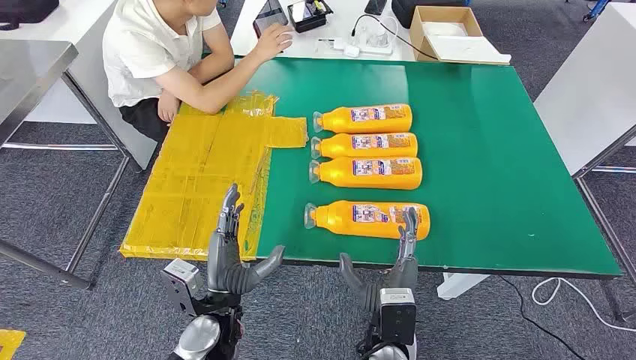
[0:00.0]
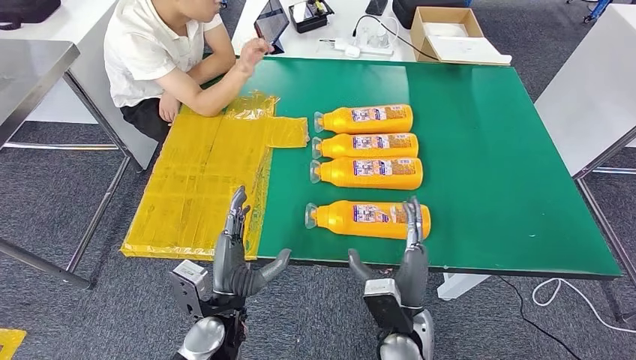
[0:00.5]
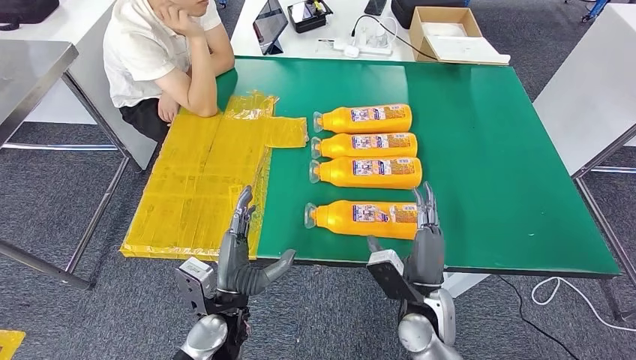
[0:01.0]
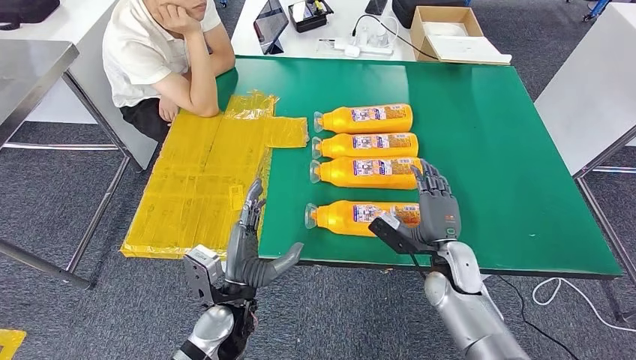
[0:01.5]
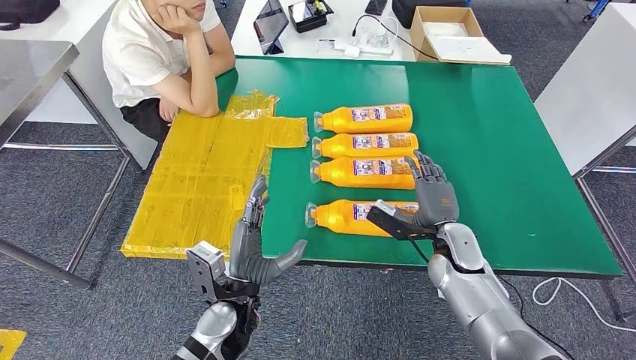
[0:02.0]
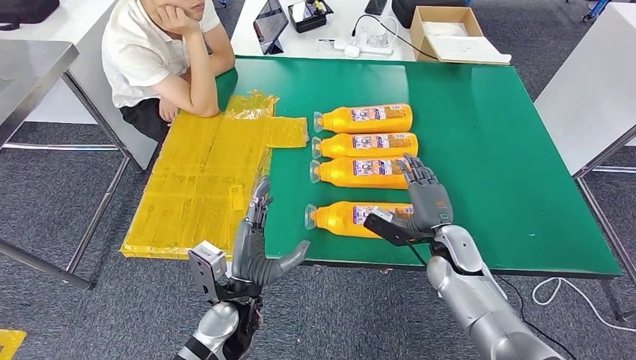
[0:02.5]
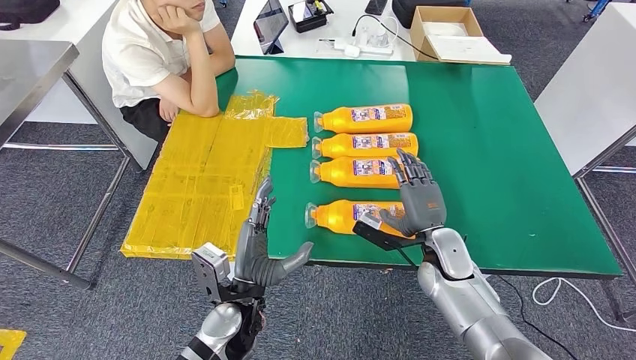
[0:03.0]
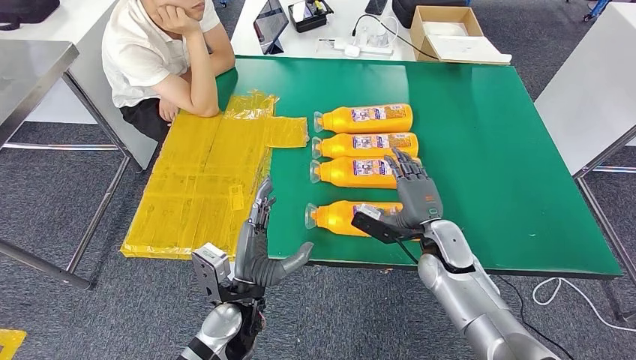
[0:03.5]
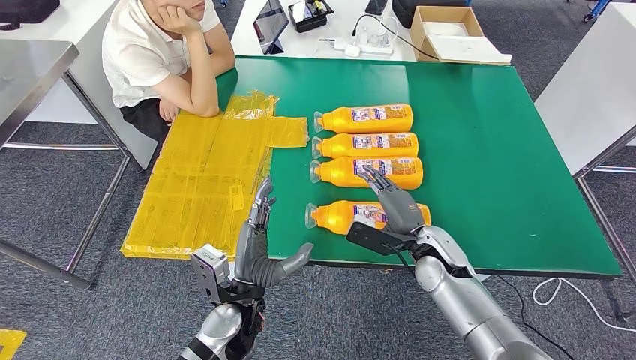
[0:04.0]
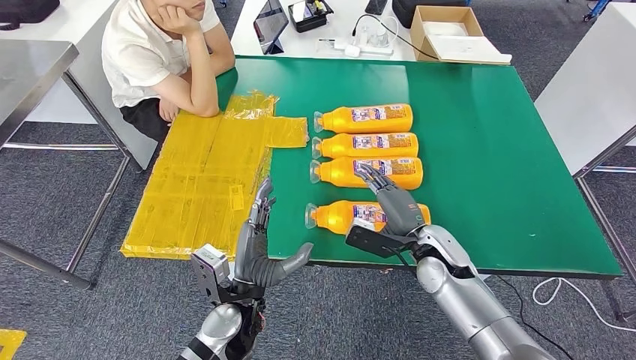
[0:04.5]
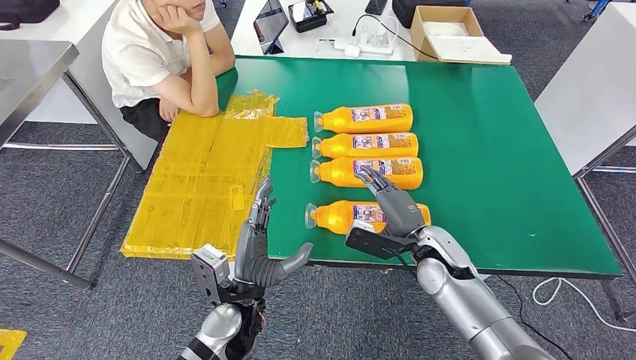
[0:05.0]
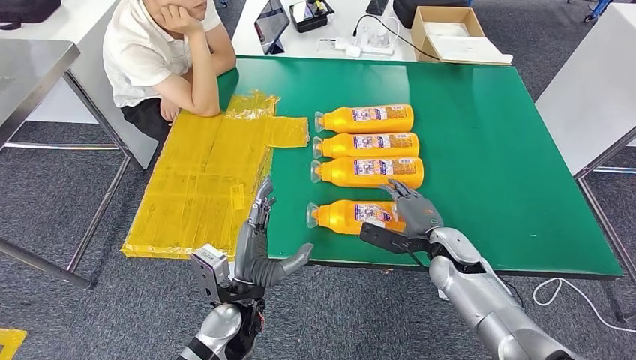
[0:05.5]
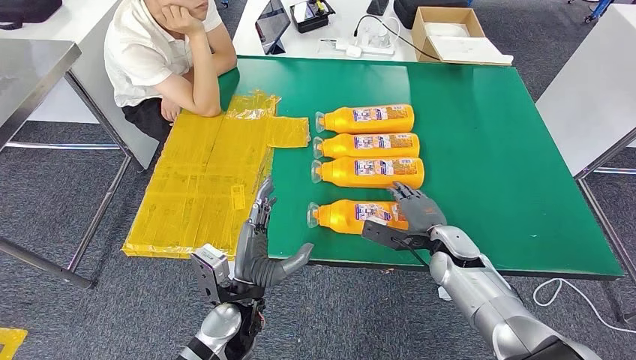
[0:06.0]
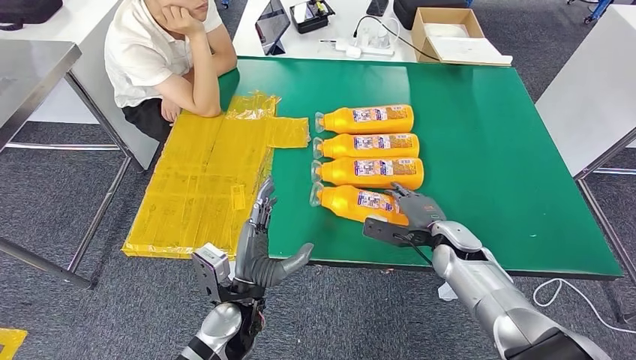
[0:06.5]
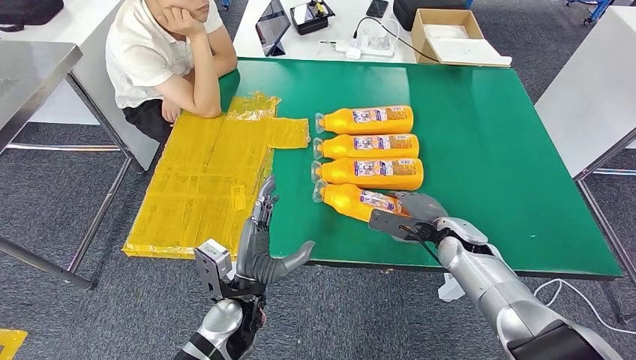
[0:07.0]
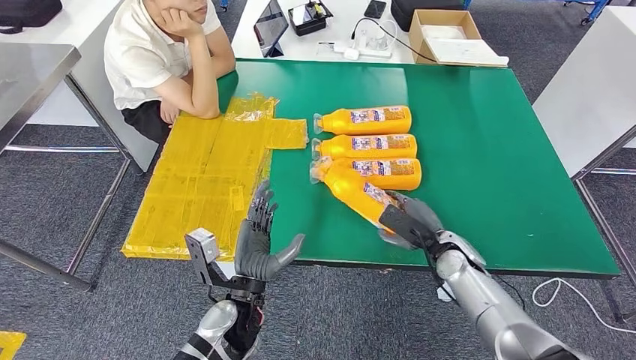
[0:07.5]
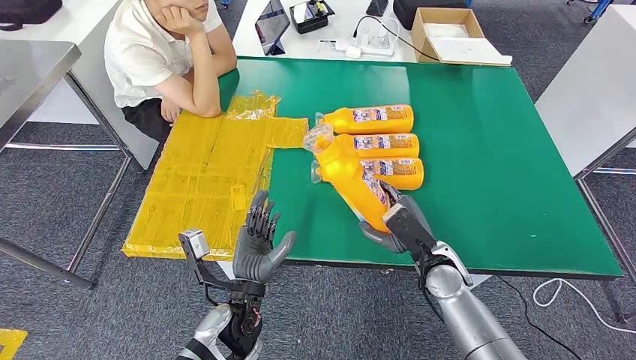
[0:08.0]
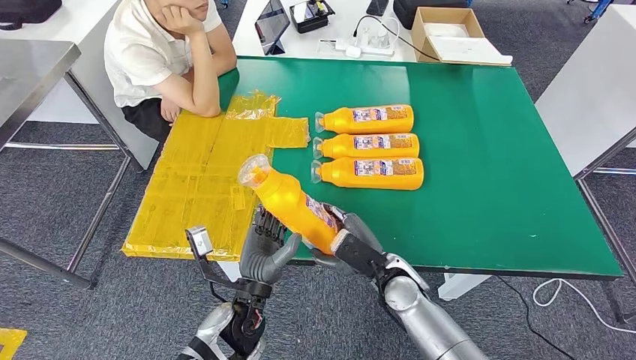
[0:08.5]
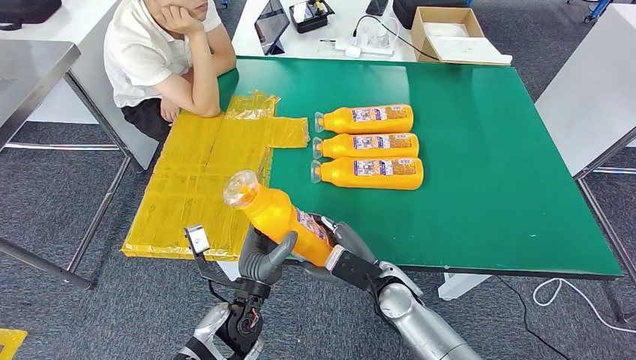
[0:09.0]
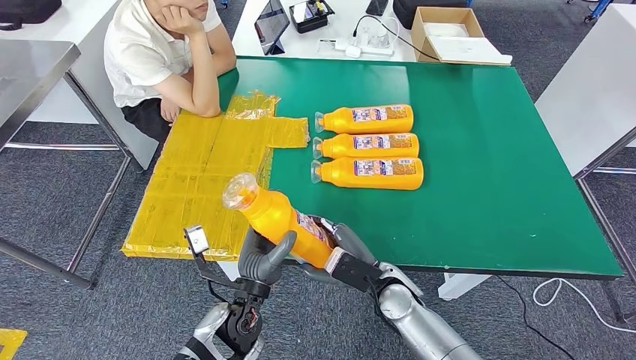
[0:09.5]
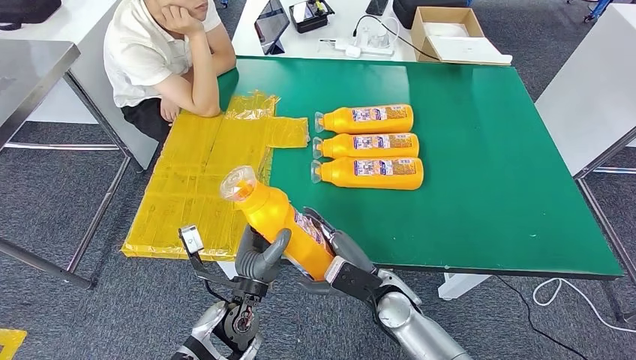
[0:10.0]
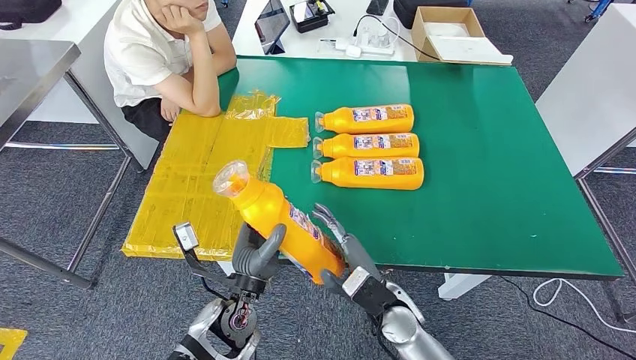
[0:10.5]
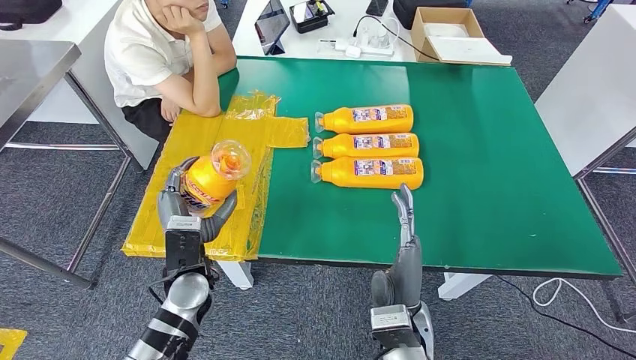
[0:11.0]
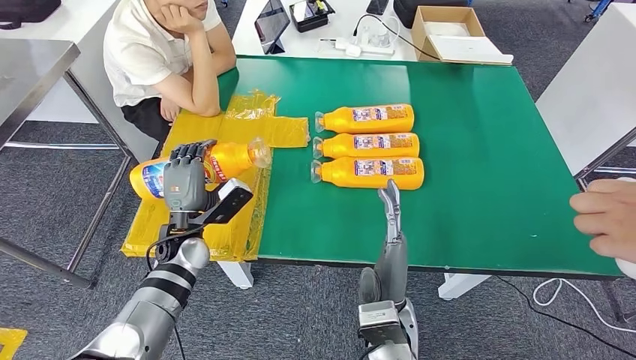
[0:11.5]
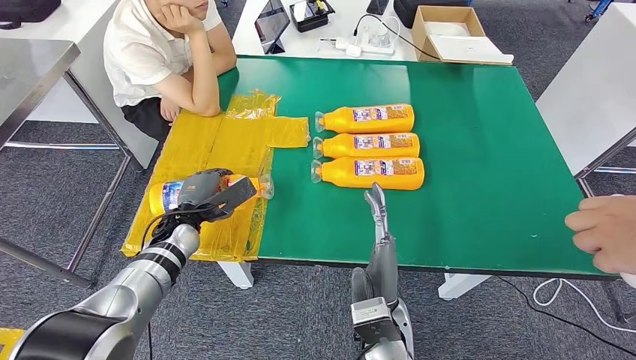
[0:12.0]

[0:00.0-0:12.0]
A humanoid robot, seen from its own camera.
Step, 0.0 to 8.5 s: Take the fast-moving consumer goods bottle from the table.
4.0 to 6.0 s: The right hand ends up about 5 cm from where it was.
6.0 to 8.0 s: The right hand shifts by roughly 5 cm.
8.0 to 10.0 s: The right hand shifts approximately 10 cm to the left.
10.0 to 12.0 s: The left hand travels forward and to the left by some 20 cm. The right hand goes about 10 cm backward and upward.

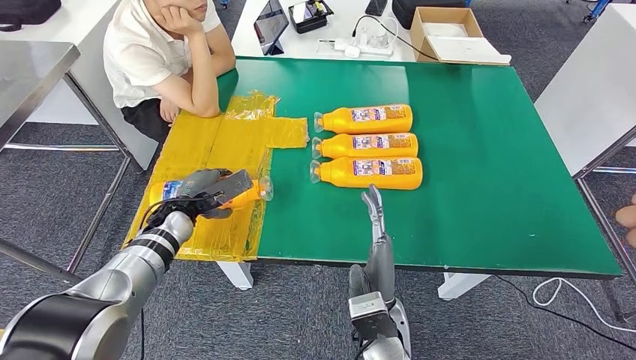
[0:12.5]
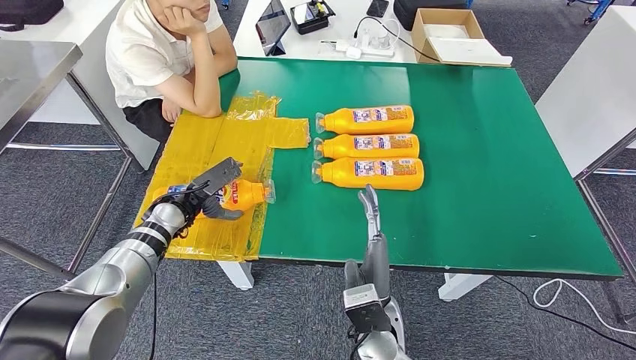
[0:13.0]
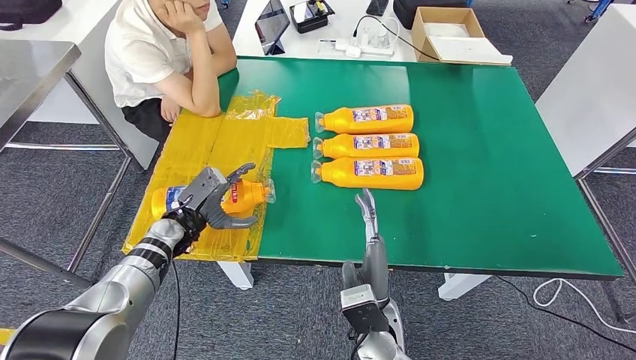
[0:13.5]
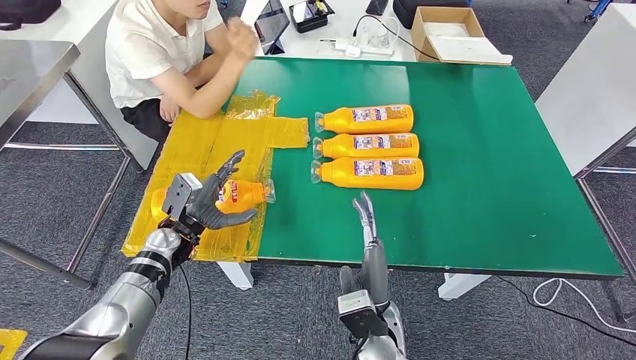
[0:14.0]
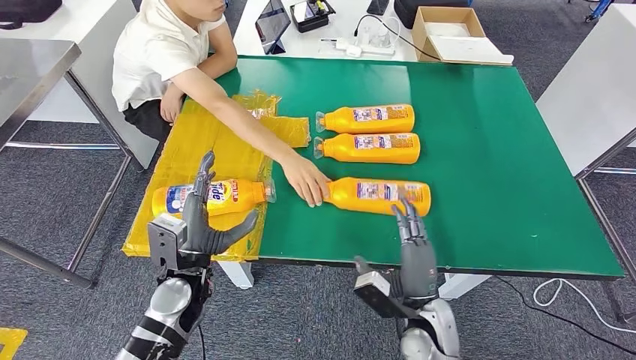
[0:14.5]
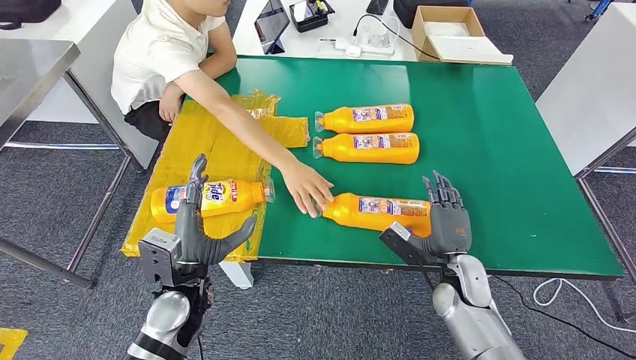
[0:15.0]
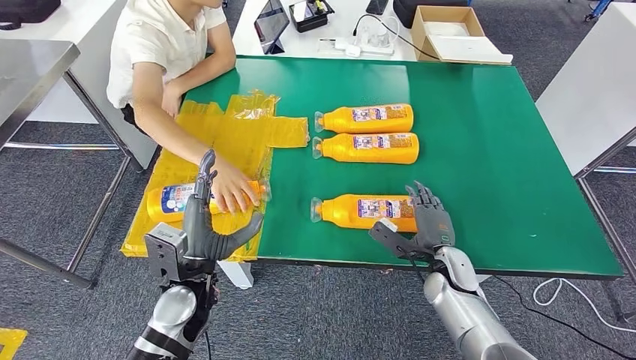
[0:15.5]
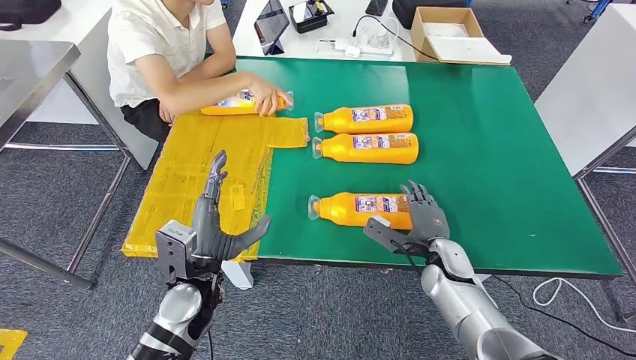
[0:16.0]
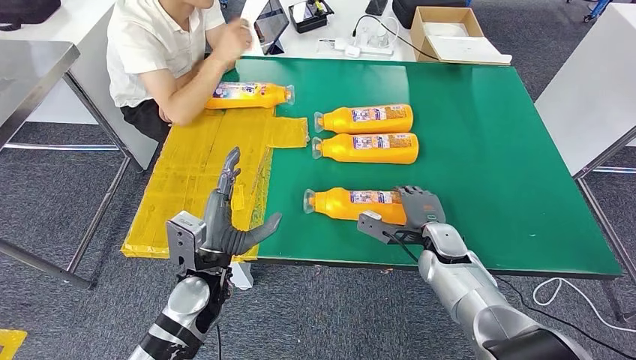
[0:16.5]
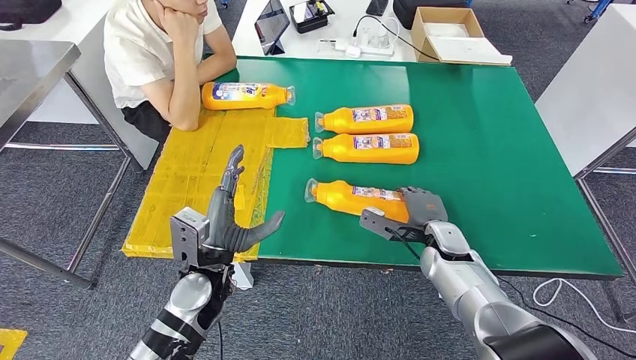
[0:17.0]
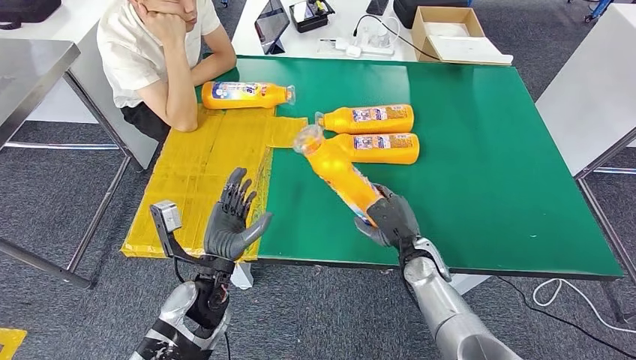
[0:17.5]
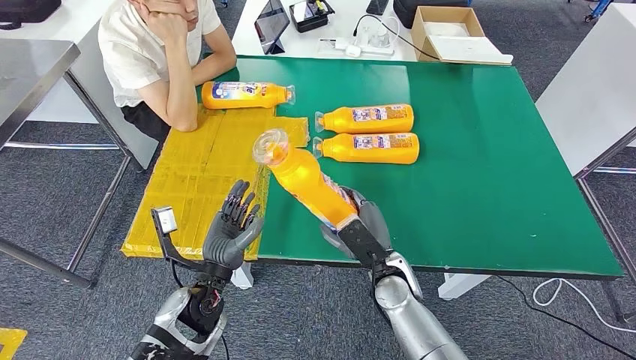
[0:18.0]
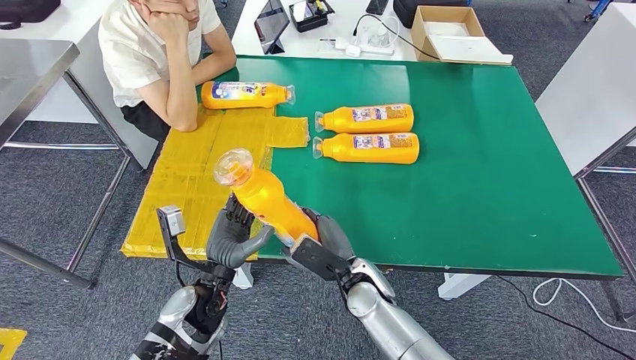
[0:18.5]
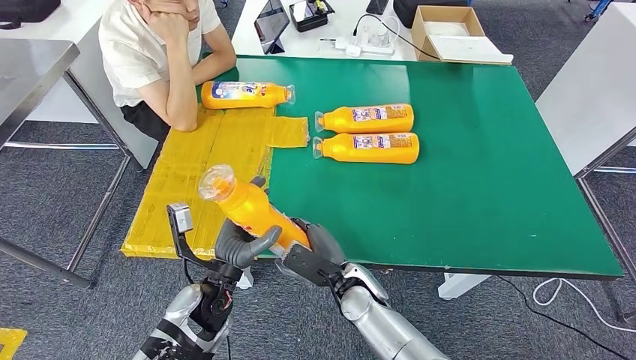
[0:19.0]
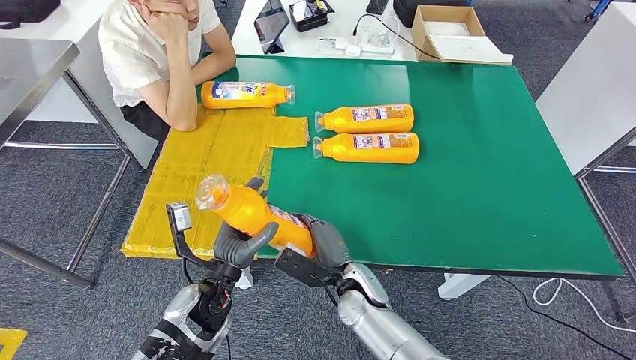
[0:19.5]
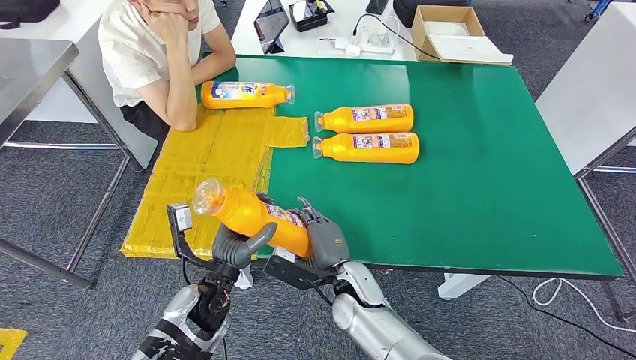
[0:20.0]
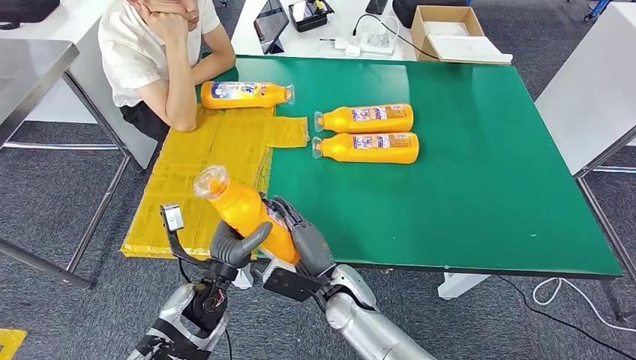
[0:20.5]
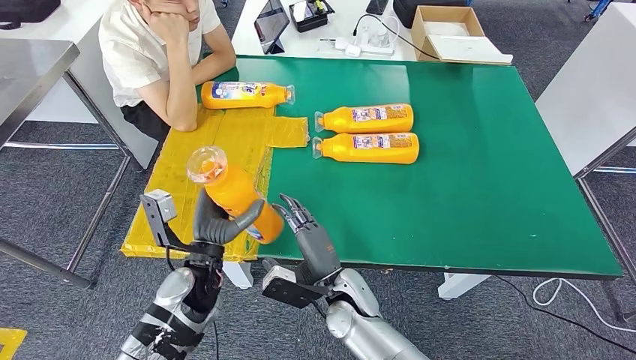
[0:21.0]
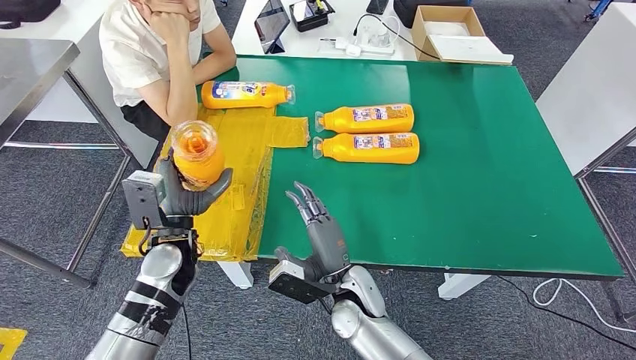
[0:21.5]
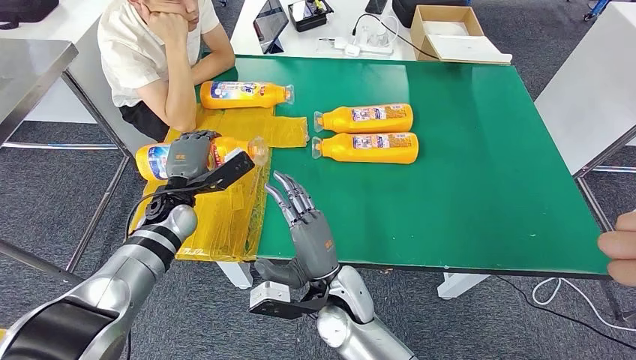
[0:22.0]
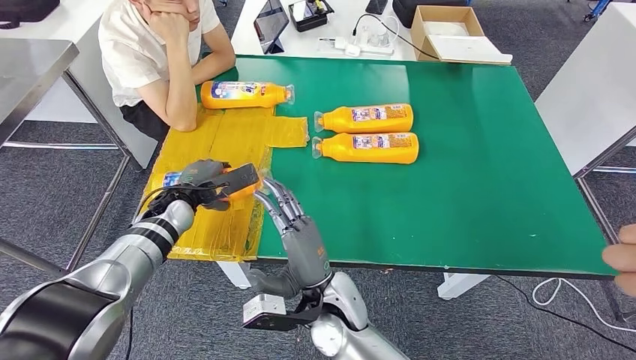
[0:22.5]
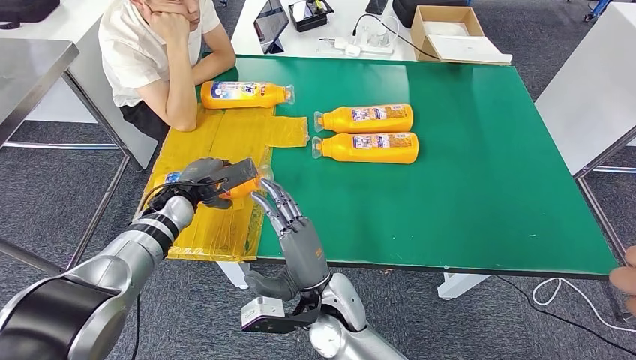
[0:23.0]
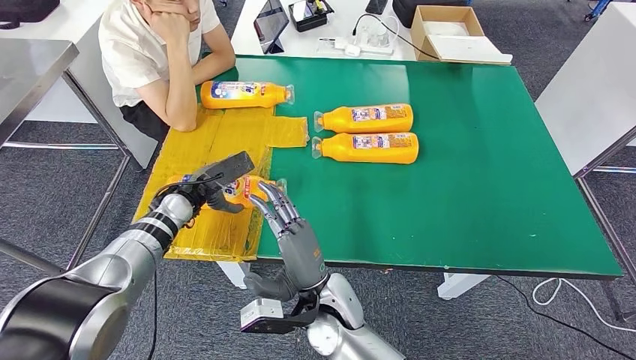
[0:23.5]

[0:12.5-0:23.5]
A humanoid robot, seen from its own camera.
Step, 12.5 to 14.5 s: Flip the fast-moving consumer goods bottle to the front side.
Step, 15.0 to 18.0 s: Pick up the fast-moving consumer goods bottle from the table.
16.0 to 18.0 s: The right hand heads to the left, covering about 10 cm.
18.0 to 20.0 s: The right hand goes roughly 5 cm to the left.
20.0 to 21.5 s: The left hand shifts roughly 10 cm to the left, forward and upward.
21.5 to 23.5 s: The left hand shifts roughly 10 cm forward; the right hand shifts by some 5 cm.
